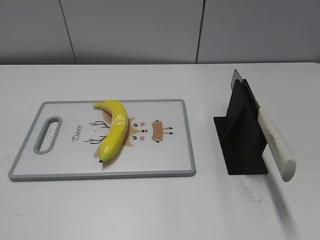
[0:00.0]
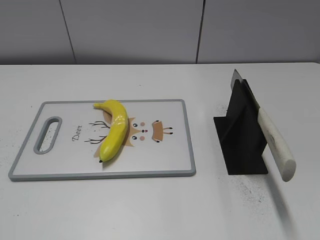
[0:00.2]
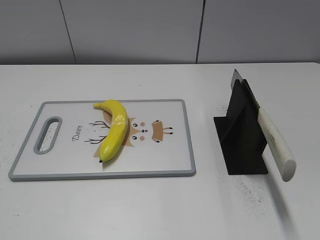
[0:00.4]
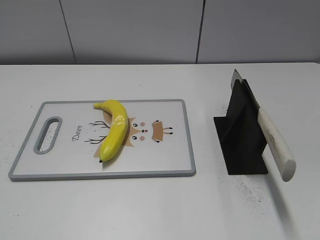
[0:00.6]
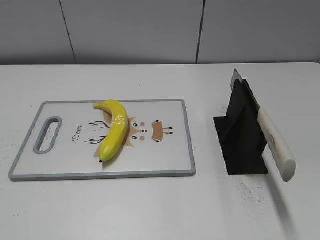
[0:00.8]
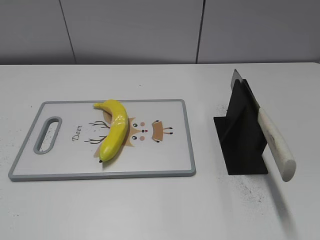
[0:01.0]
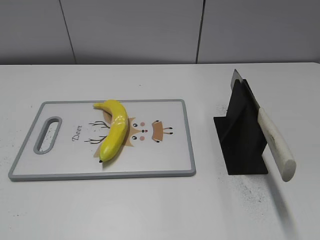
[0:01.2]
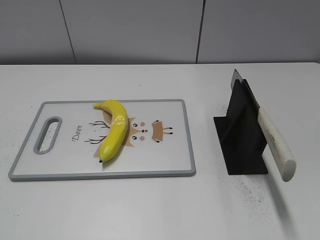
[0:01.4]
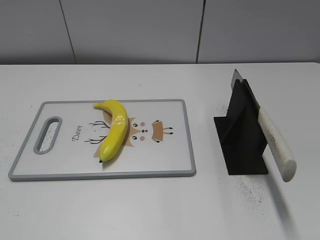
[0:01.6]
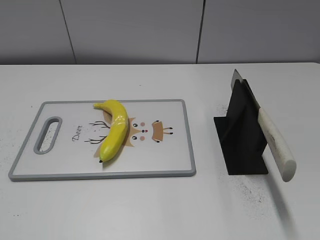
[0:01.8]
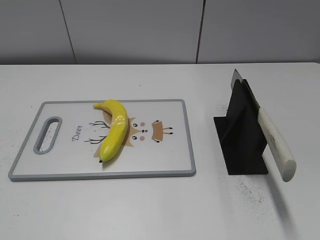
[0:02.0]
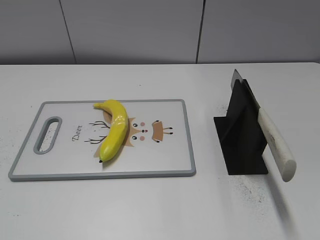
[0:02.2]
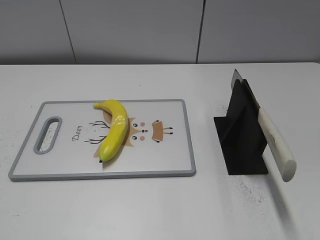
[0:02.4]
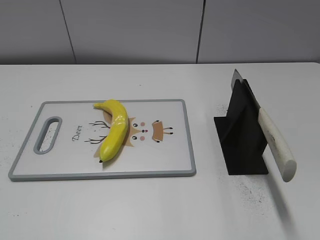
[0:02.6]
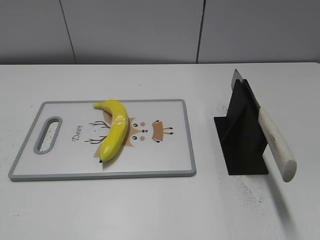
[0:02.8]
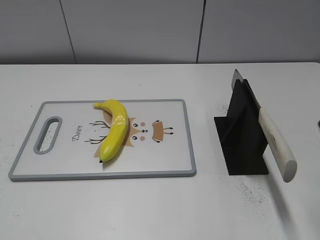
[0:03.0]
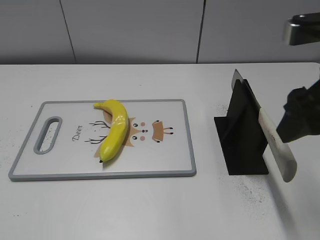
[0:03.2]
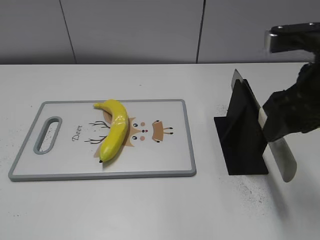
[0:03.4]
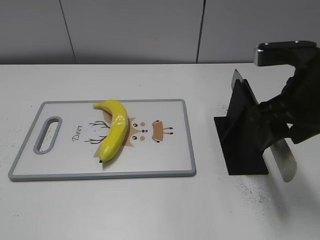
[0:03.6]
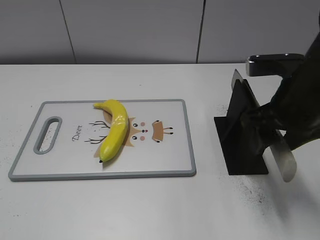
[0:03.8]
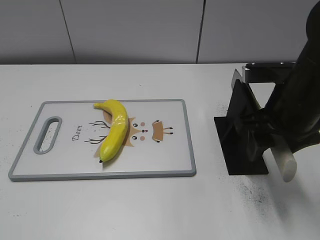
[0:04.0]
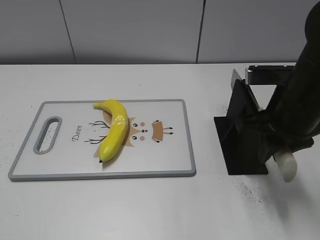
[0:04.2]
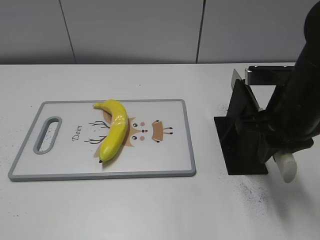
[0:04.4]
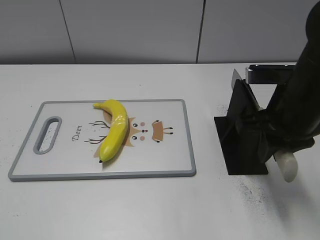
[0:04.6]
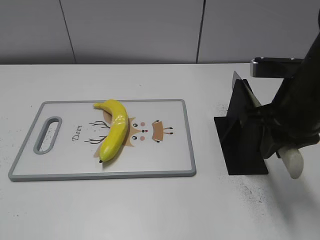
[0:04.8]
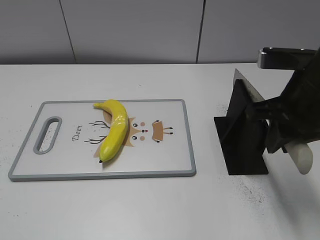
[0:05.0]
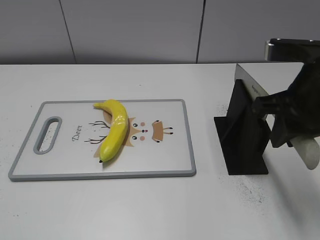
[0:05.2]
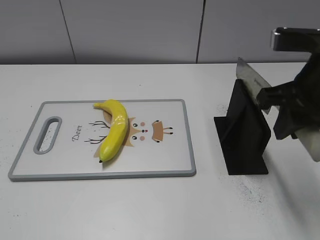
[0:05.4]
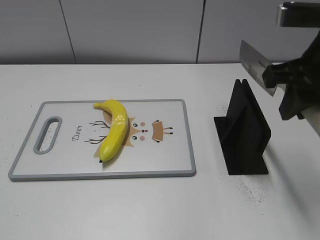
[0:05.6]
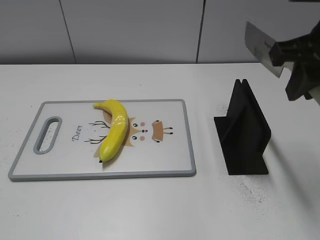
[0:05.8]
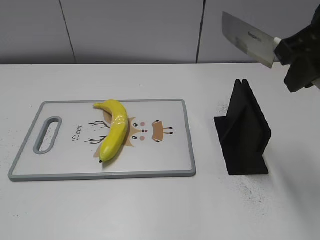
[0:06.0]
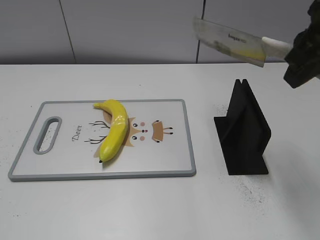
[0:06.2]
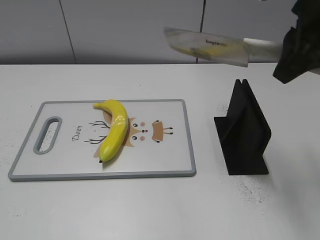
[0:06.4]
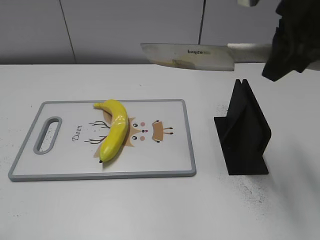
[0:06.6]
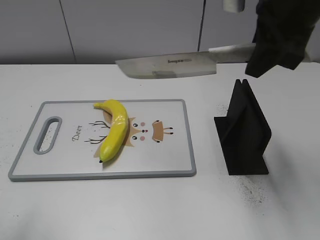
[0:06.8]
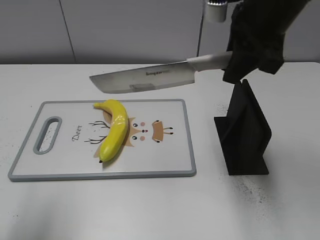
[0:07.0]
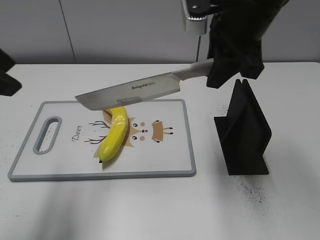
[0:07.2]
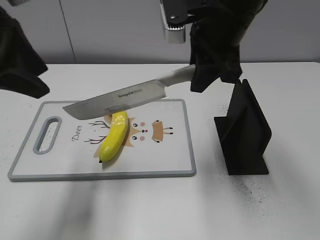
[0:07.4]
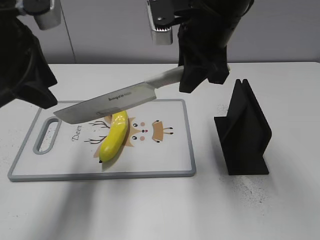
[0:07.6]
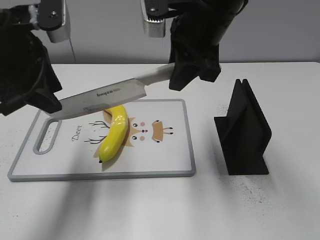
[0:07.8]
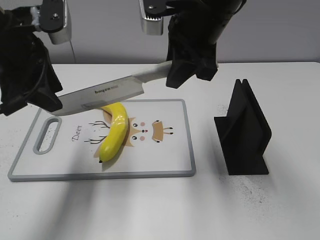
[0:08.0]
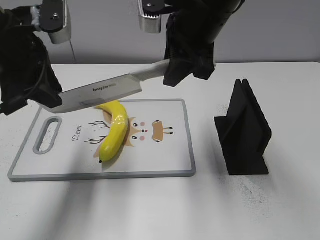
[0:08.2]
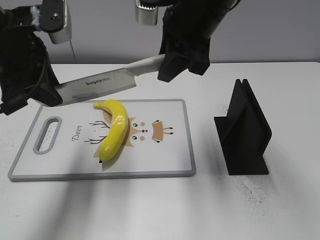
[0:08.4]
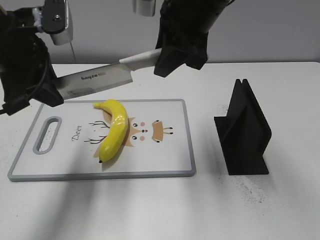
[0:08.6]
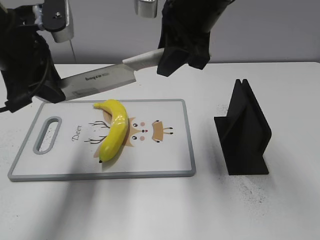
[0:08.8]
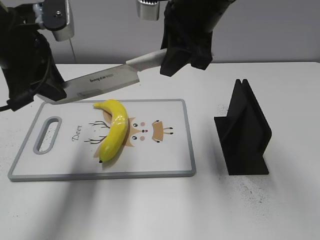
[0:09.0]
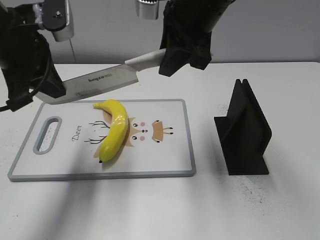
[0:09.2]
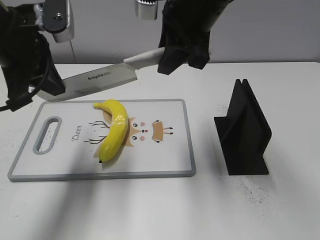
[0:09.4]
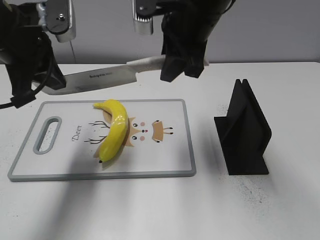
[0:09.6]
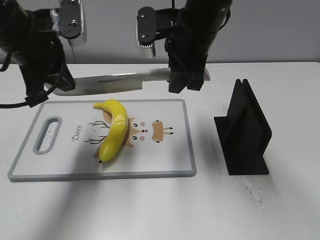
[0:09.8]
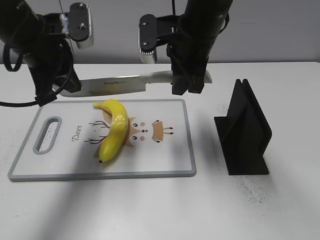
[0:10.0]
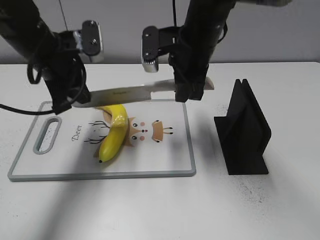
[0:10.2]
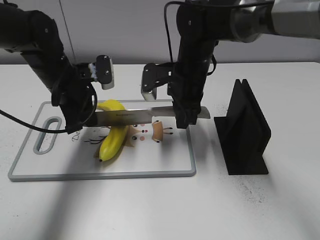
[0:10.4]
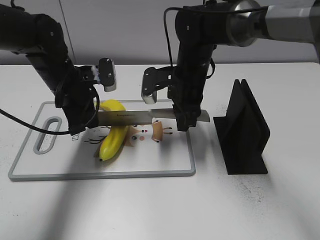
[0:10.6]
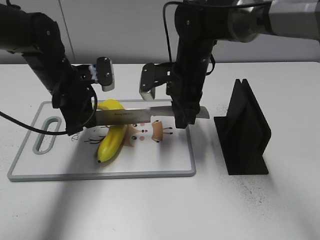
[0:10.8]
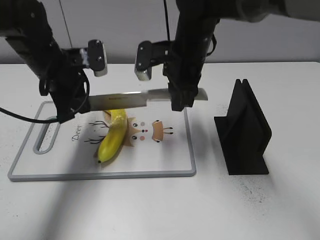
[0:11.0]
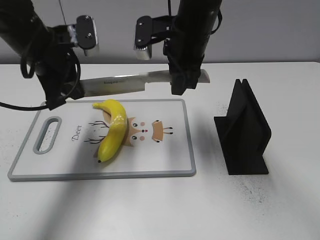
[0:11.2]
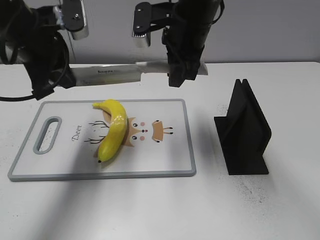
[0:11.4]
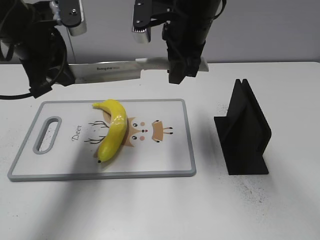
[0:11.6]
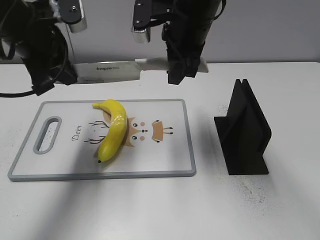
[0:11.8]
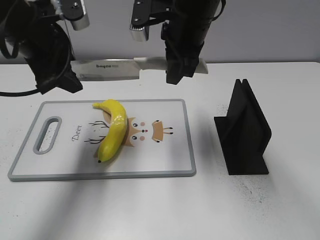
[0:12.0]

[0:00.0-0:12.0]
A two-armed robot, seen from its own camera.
Task of the whole recording: cut plastic banana.
Step, 0:00.0 to 0:05.2: Grab the knife handle with your right hand.
Step, 0:05.6 to 0:11.6: Lift the knife with your right hand.
0:03.0 to 0:04.4: The right gripper shifts approximately 15 cm downward, to the left and forward, and closes up.
0:04.4 to 0:06.0: The right gripper travels upward by roughly 10 cm.
0:06.0 to 0:07.6: The right gripper heads to the left and forward, covering approximately 15 cm; the left gripper moves forward, roughly 30 cm.
0:07.6 to 0:09.0: The left gripper closes up.
0:09.0 to 0:10.4: The left gripper heads downward and forward, covering about 15 cm. The right gripper moves downward, roughly 15 cm.
0:10.4 to 0:12.0: Both grippers move upward, about 10 cm. The left gripper opens its fingers.

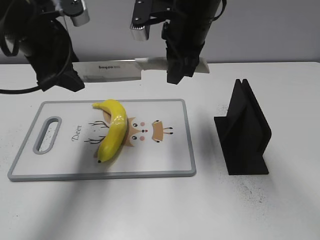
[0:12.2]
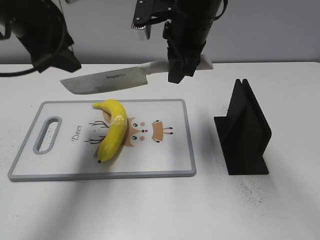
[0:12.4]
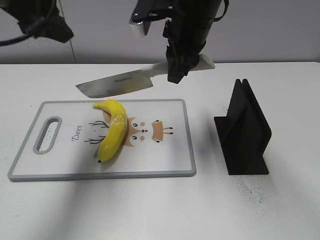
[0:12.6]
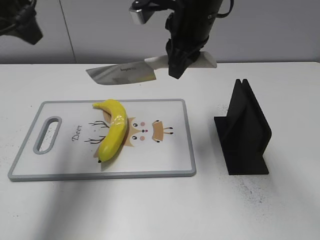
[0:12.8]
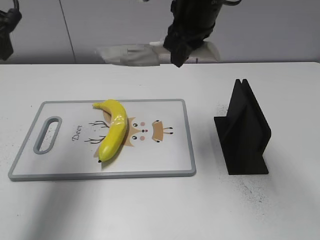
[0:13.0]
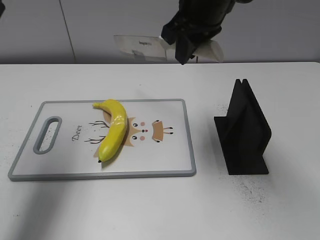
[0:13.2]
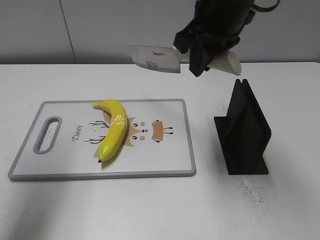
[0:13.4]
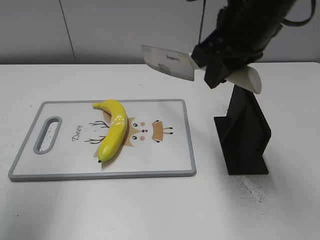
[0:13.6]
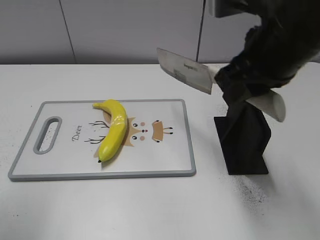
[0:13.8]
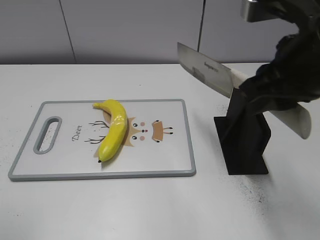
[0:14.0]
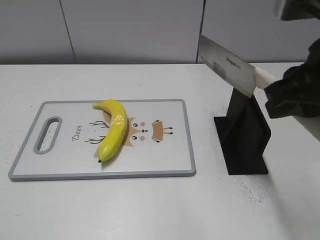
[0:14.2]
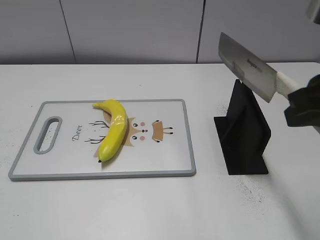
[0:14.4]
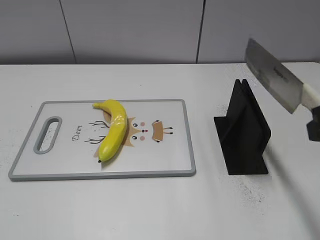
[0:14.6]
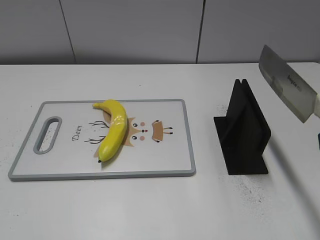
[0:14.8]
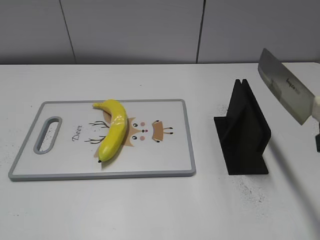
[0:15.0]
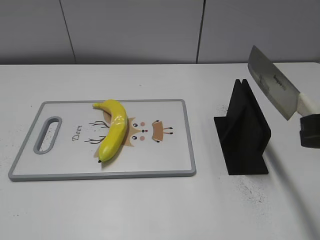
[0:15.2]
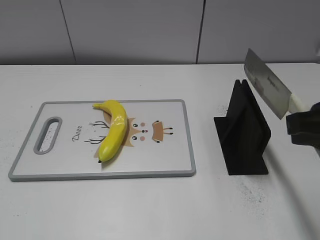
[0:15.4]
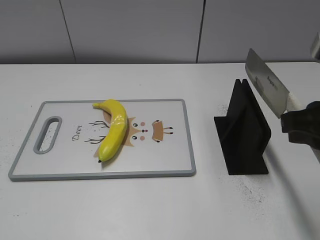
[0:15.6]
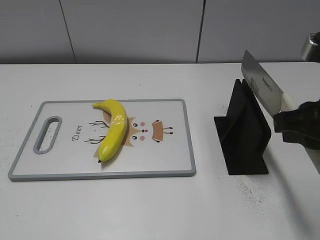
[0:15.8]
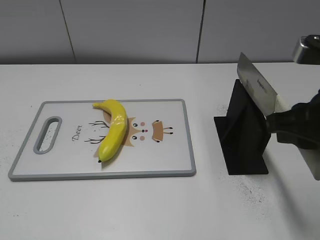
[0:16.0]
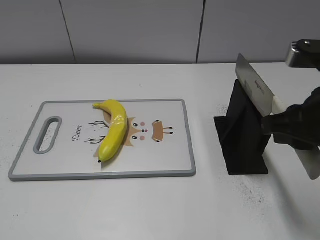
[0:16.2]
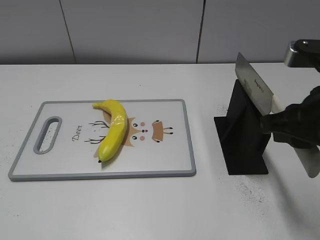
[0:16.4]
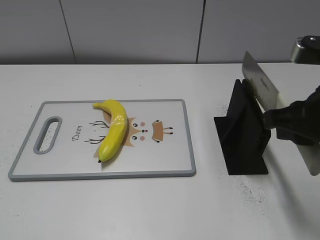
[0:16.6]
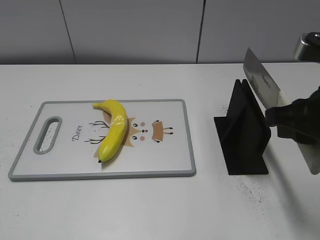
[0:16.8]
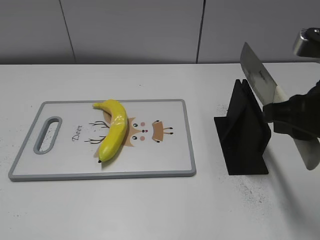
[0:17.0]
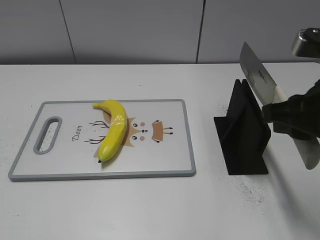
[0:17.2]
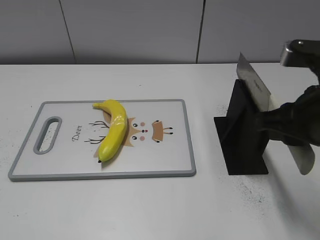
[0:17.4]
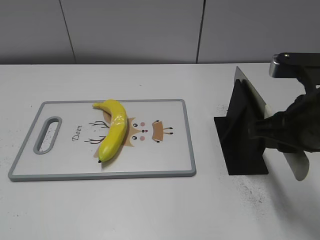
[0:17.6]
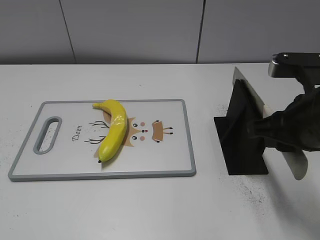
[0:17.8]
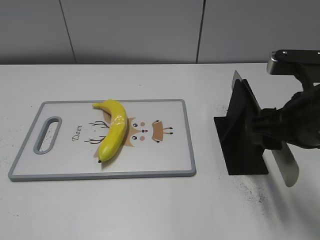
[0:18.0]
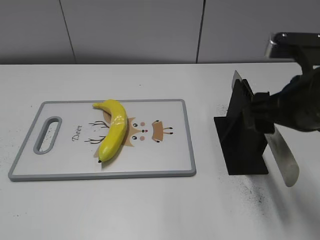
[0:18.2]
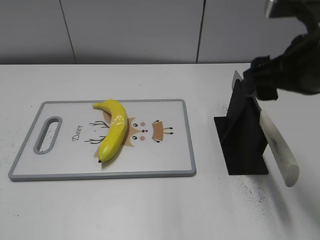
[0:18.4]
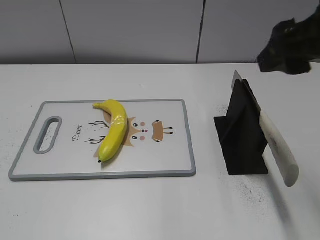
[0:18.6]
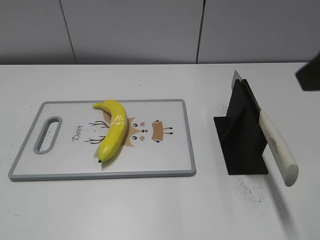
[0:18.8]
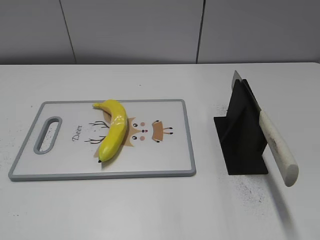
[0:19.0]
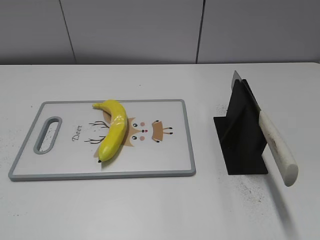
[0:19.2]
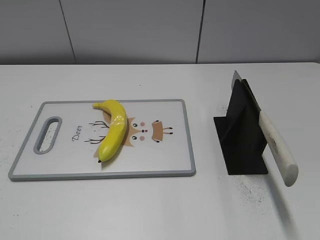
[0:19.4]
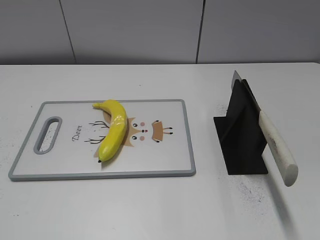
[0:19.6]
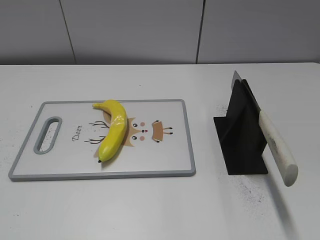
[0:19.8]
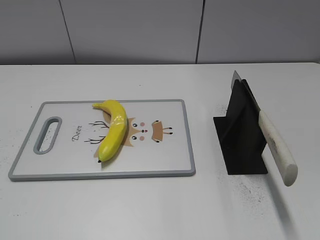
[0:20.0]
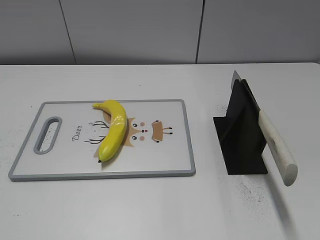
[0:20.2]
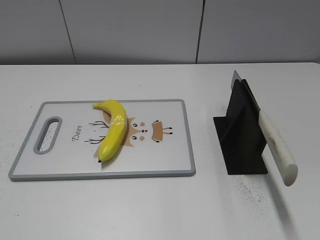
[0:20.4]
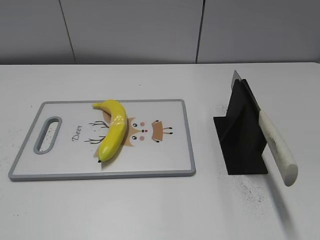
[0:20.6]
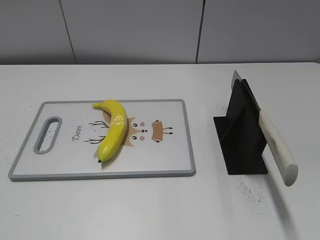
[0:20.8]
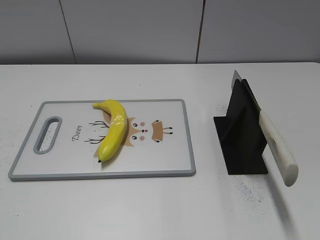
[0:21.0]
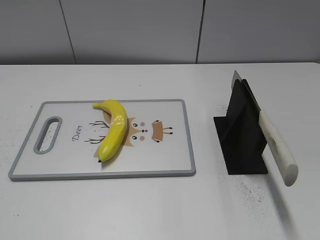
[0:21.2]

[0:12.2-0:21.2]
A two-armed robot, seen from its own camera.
Task of the whole recording: cut plastic banana.
Step, 0:12.2 to 0:13.2: Cut the banana with your right hand.
Step, 0:13.4 to 0:15.2: Lift the knife with your right hand.
Step, 0:15.4 to 0:21.2: Place the knife on the storage rack with your right hand.
0:12.2 to 0:13.8: The left gripper goes approximately 20 cm backward, to the left and upward. Meanwhile the right gripper is displaced backward and to the right by some 15 cm.
0:13.8 to 0:15.2: The left gripper travels backward and downward by about 20 cm, while the right gripper moves backward and to the right, some 15 cm.
0:15.2 to 0:16.6: The right gripper ends up roughly 5 cm from where it was.
0:16.6 to 0:18.2: The right gripper opens up.
0:18.2 to 0:19.8: The right gripper travels backward and to the right by approximately 25 cm.

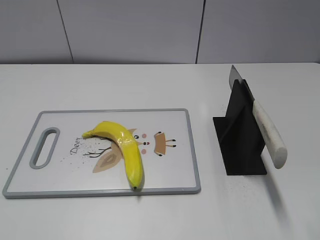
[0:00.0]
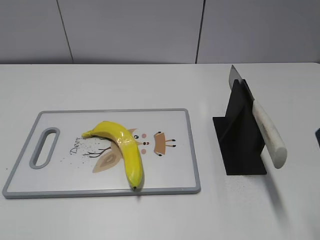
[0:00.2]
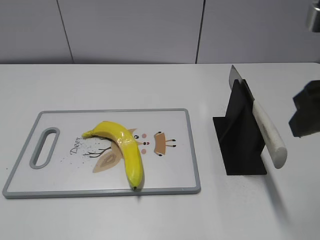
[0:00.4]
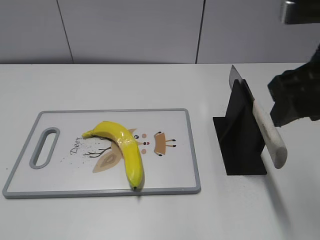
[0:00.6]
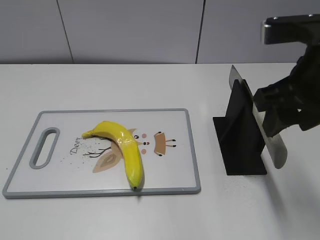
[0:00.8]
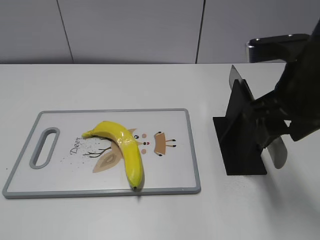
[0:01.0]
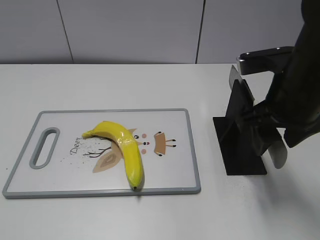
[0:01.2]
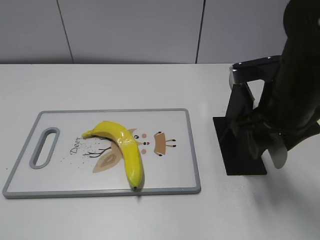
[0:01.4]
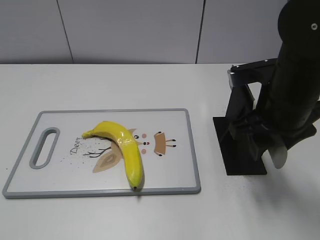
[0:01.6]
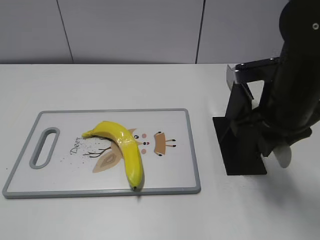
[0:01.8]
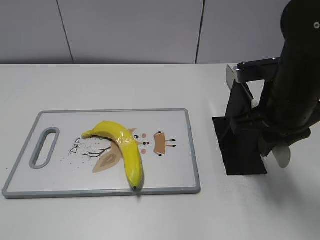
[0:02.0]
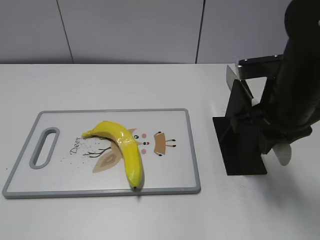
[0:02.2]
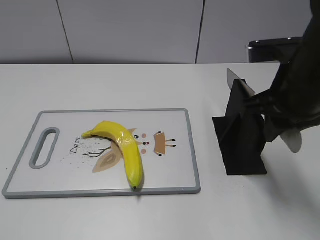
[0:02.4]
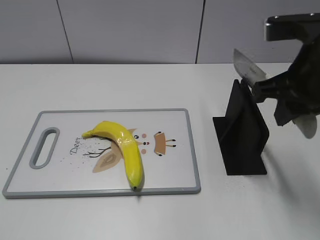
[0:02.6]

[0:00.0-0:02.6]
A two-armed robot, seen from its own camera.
Task of the whole recording: cut plastic banana.
0:00.0 to 0:01.2: The right gripper heads forward, downward and to the left, covering roughly 15 cm.
0:01.2 to 0:02.6: The right gripper closes up.
